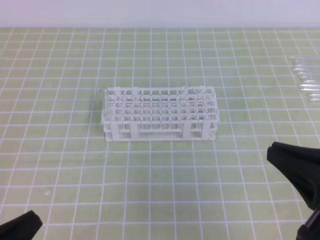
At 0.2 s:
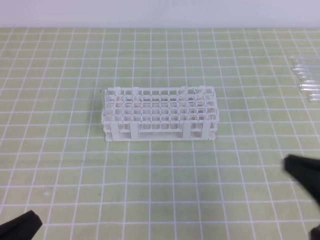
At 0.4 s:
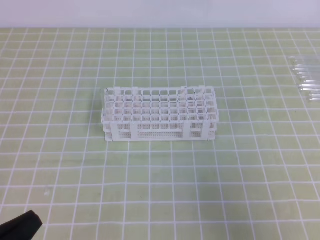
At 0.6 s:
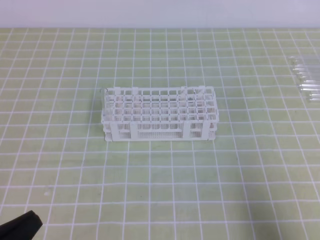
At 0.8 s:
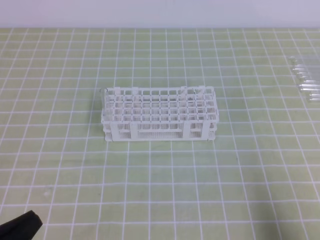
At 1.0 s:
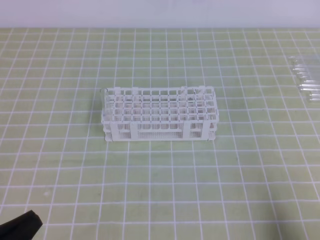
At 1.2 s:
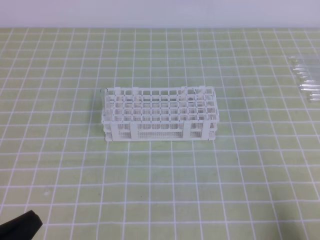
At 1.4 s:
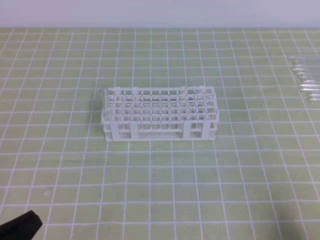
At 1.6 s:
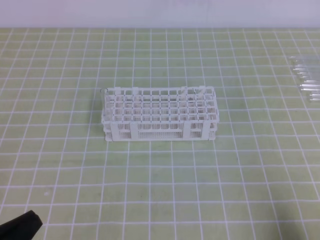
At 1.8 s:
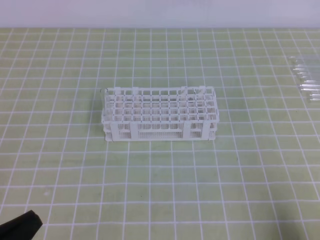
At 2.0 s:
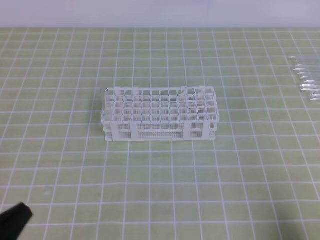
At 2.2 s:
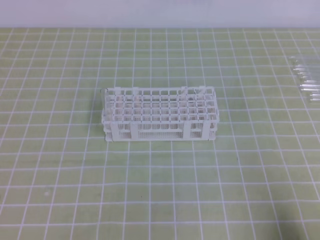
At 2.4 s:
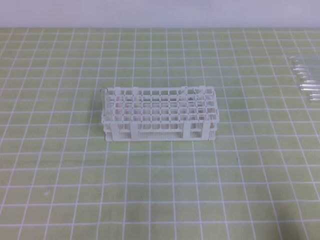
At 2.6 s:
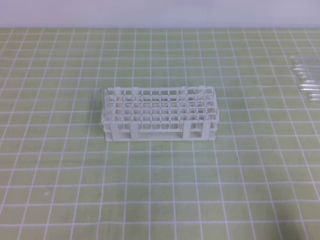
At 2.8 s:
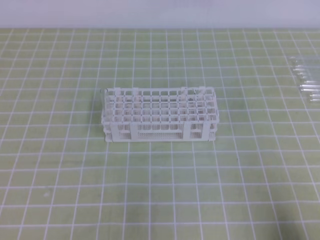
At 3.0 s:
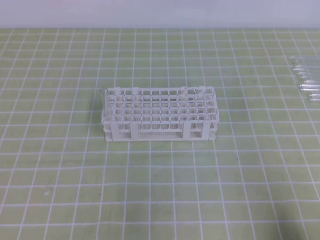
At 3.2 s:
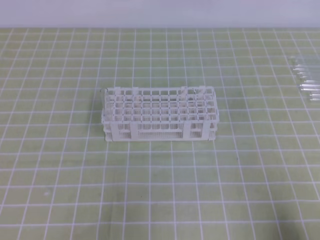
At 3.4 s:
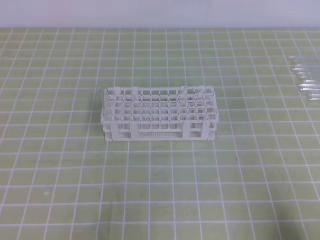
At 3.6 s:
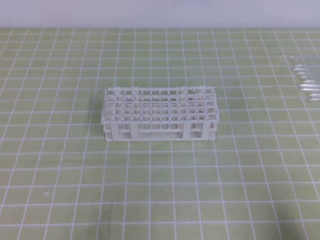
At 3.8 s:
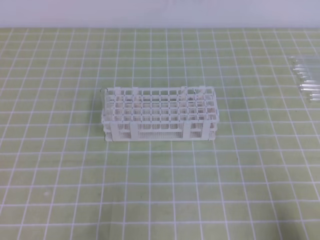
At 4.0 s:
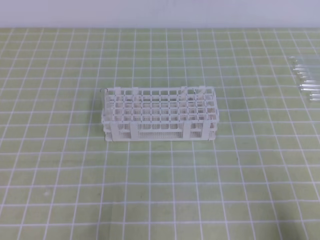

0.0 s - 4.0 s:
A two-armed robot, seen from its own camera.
0.0 s - 1.4 s: The right gripper goes about 15 cm downward and to the right.

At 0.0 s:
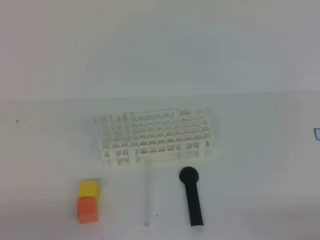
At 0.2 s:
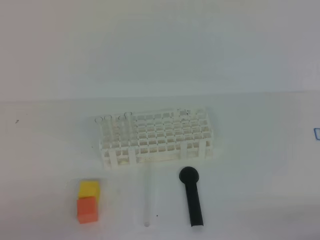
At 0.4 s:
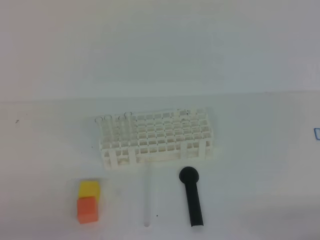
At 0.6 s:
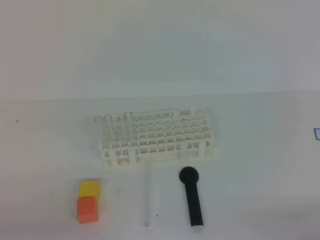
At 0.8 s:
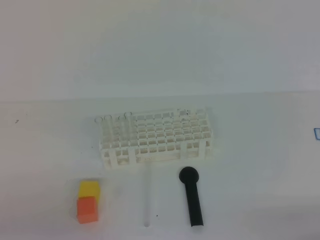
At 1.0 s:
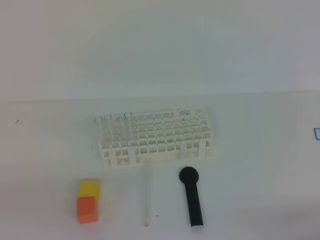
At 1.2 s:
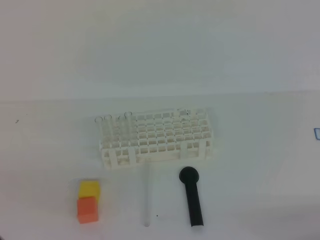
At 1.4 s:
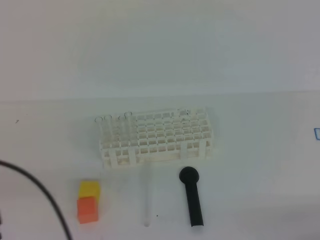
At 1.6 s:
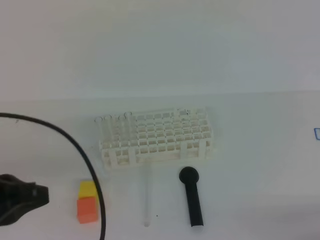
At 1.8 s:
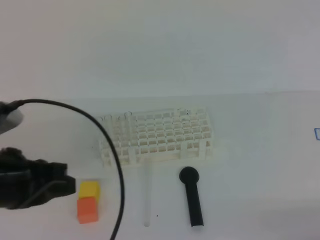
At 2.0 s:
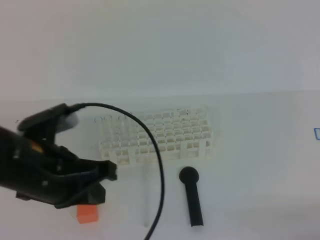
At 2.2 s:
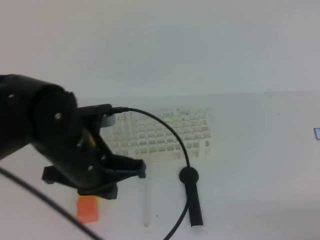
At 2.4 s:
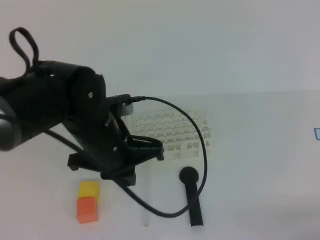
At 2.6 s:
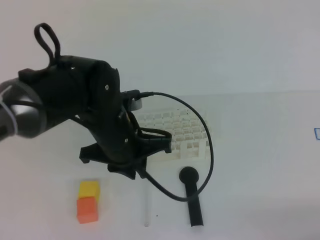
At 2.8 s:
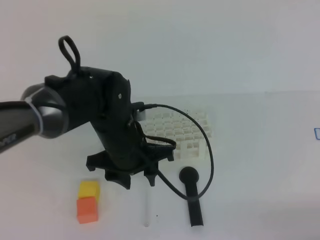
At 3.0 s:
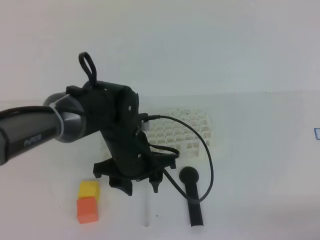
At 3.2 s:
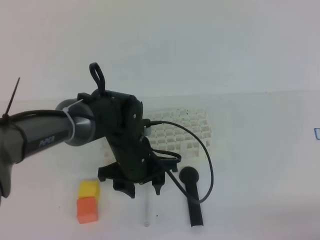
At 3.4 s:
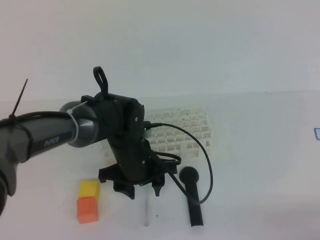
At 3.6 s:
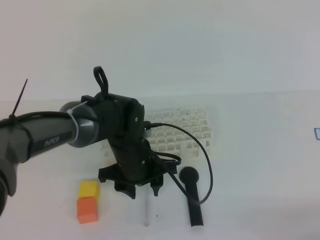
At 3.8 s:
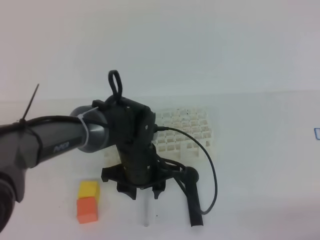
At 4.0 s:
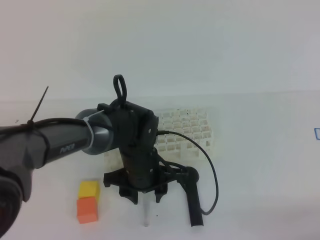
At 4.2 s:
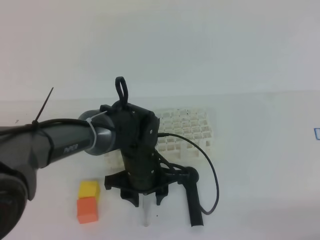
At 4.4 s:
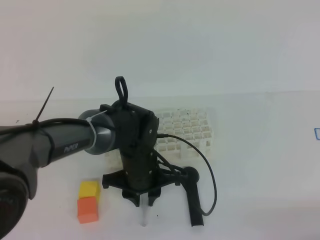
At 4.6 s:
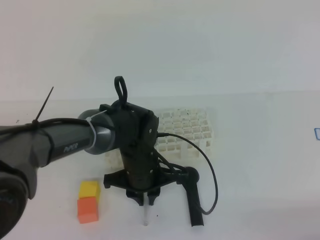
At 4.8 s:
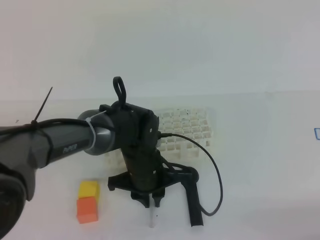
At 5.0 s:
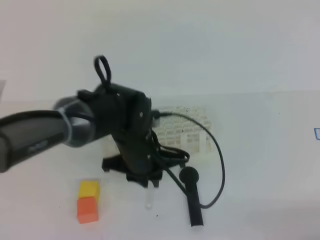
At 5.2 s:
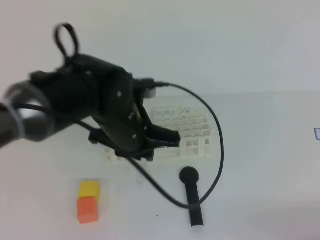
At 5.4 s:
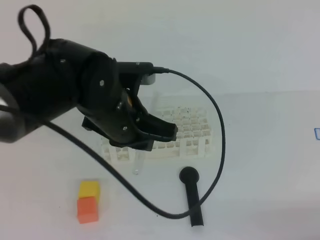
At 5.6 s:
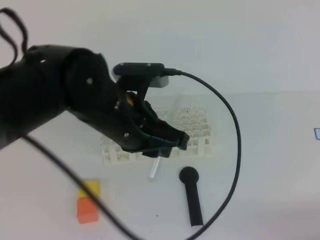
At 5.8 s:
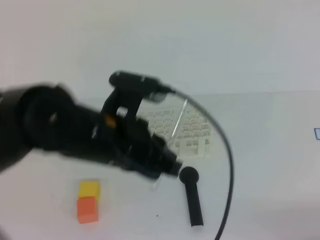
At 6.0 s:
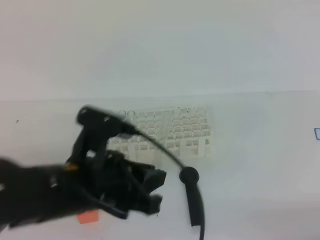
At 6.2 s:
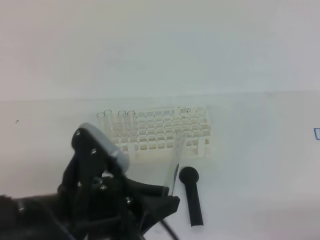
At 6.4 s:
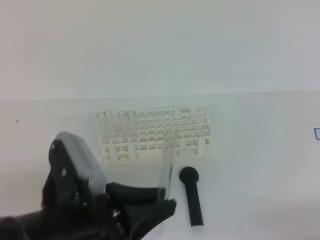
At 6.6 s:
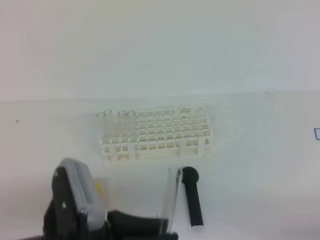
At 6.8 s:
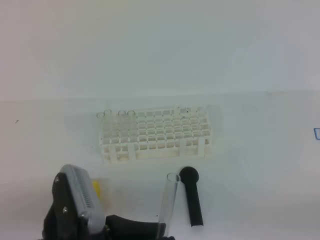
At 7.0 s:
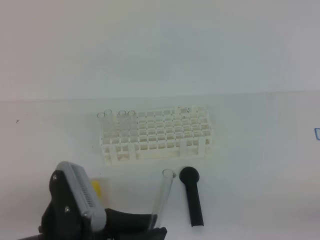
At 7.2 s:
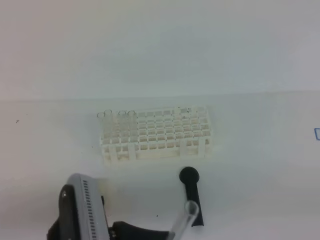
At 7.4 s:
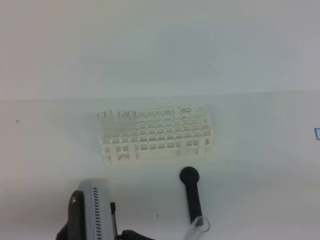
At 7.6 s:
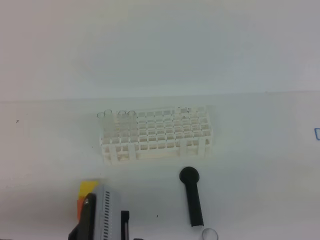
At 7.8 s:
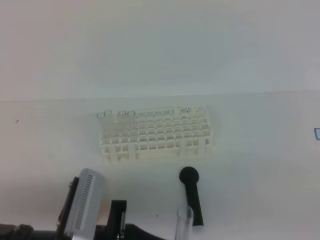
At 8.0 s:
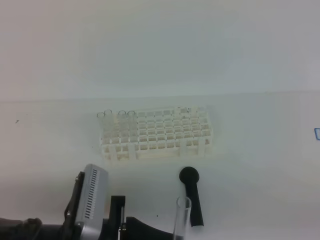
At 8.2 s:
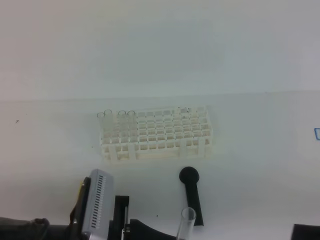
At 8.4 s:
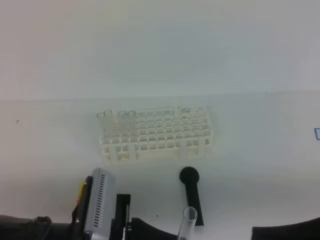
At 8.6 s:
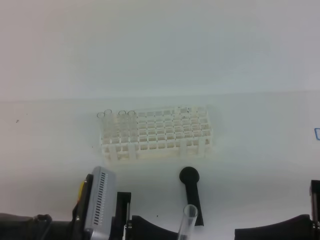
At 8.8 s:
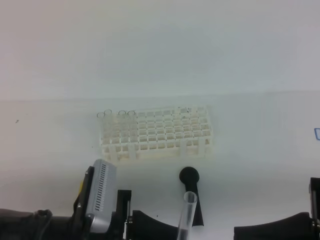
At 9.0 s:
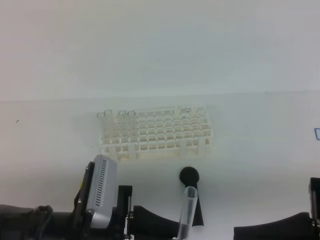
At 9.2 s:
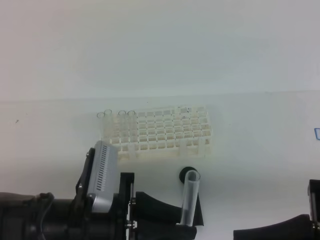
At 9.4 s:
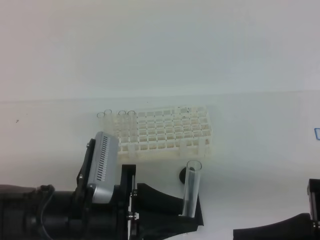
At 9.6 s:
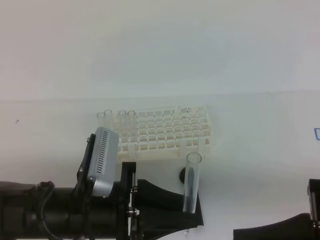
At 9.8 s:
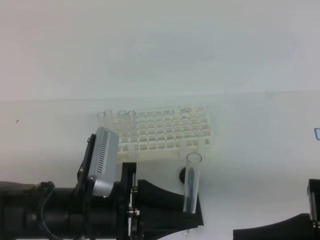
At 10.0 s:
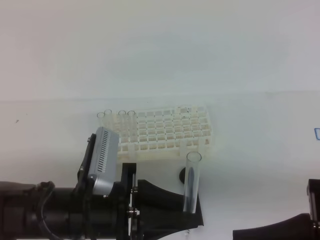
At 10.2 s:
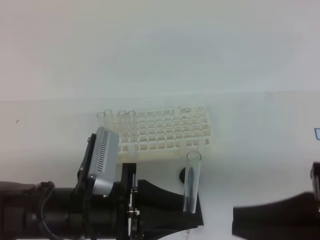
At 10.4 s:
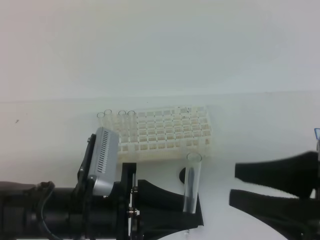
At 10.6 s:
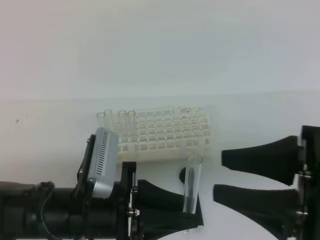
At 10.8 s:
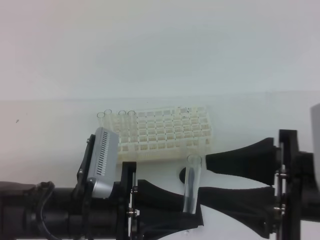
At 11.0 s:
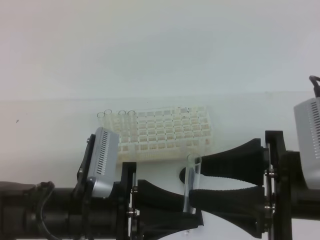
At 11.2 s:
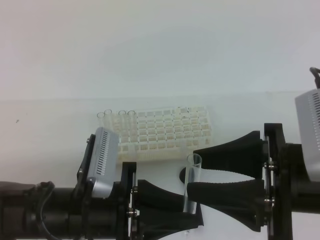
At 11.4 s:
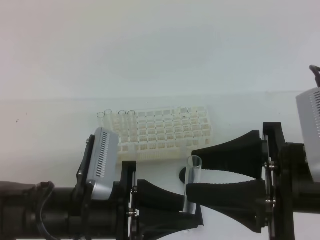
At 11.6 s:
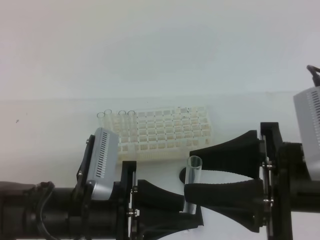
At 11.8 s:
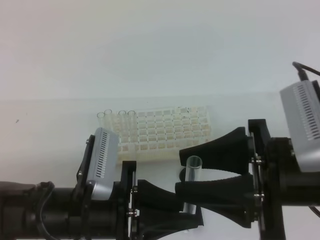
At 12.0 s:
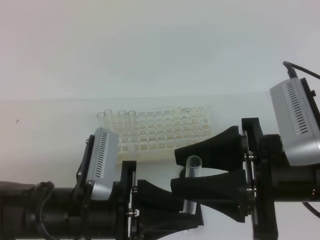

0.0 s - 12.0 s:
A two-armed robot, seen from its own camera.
Step, 0.0 s - 3.8 s: Grab the test tube with the left hand.
Step, 4.0 s - 10.4 s: Receive the test tube with the right hand.
0.0 s - 1.6 s: The left gripper is displaced upward and forward by approximately 15 cm.
1.6 s - 3.0 s: The left gripper travels to the right, forward and downward by approximately 25 cm, and opens its fingers.
3.0 s - 4.4 s: The left gripper goes roughly 5 cm downward, and closes up.
4.4 s - 6.0 s: The left gripper is displaced upward, backward and to the left by some 20 cm, and closes its fingers.
6.0 s - 7.6 s: The right gripper shifts about 15 cm upward, while the left gripper shifts about 10 cm backward.
7.6 s - 9.0 s: The right gripper heads to the left and forward, covering roughly 10 cm.
9.0 s - 10.4 s: The right gripper opens its fingers.
10.4 s - 12.0 s: The right gripper travels forward by some 5 cm.

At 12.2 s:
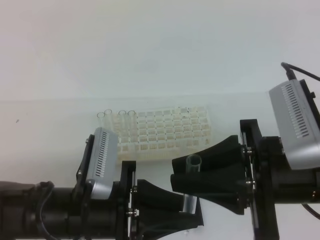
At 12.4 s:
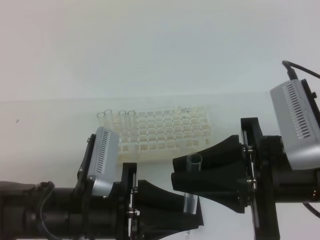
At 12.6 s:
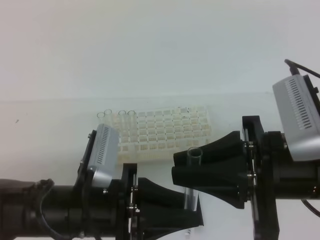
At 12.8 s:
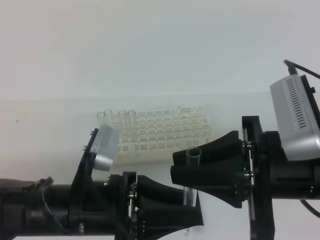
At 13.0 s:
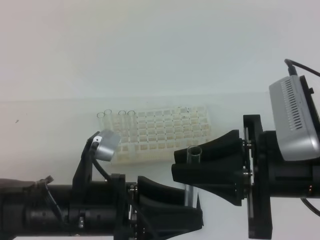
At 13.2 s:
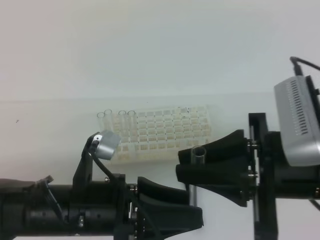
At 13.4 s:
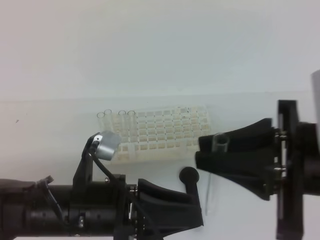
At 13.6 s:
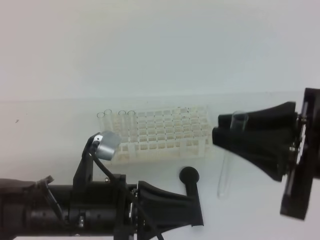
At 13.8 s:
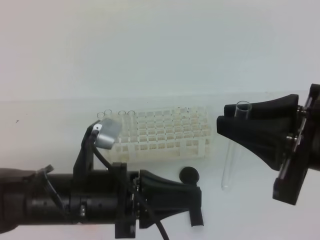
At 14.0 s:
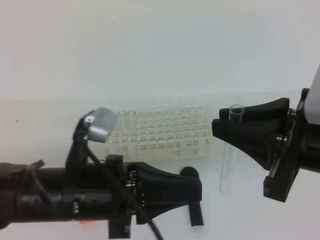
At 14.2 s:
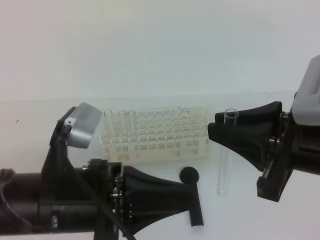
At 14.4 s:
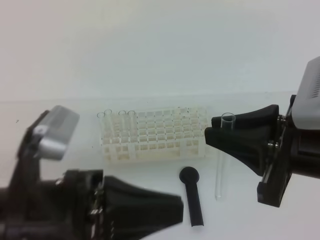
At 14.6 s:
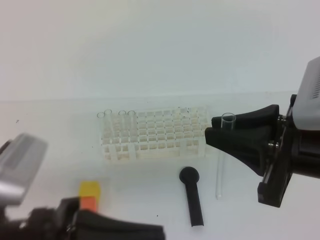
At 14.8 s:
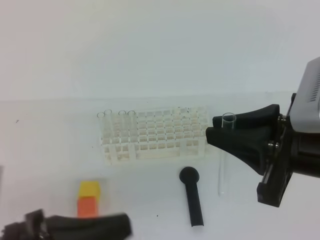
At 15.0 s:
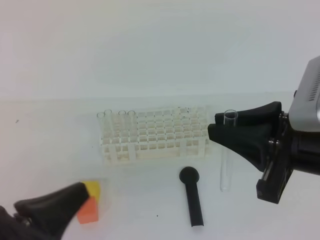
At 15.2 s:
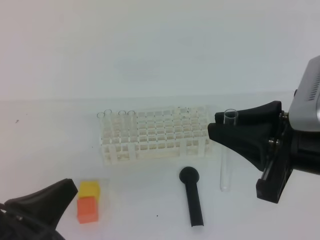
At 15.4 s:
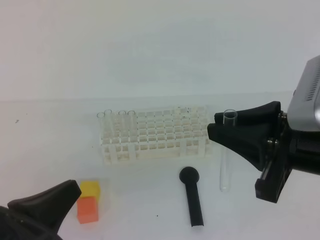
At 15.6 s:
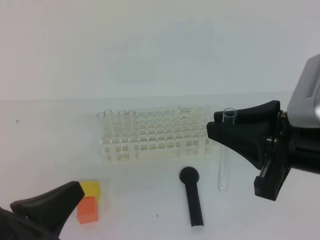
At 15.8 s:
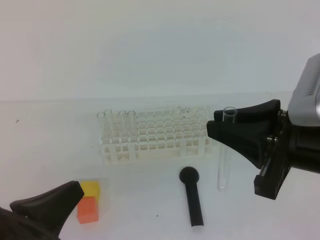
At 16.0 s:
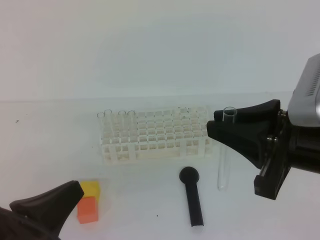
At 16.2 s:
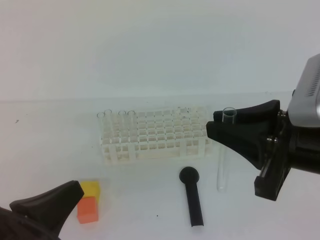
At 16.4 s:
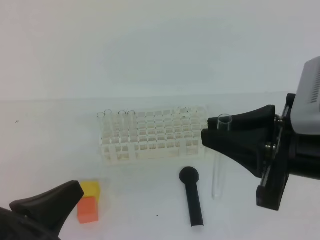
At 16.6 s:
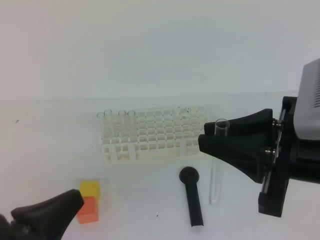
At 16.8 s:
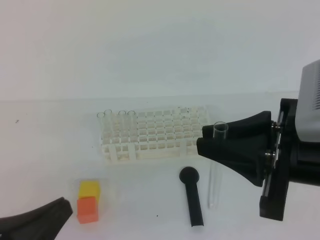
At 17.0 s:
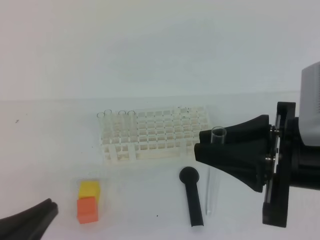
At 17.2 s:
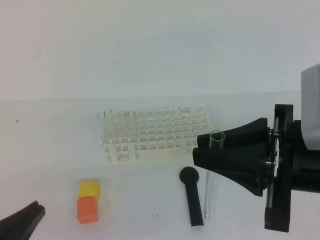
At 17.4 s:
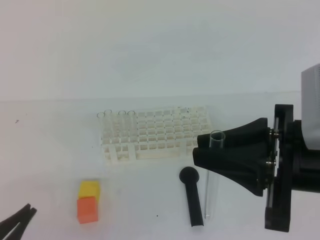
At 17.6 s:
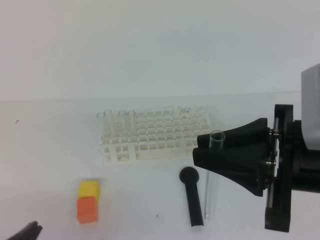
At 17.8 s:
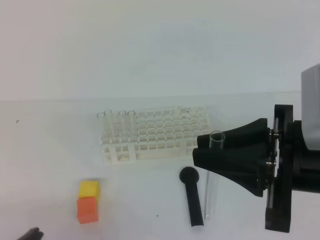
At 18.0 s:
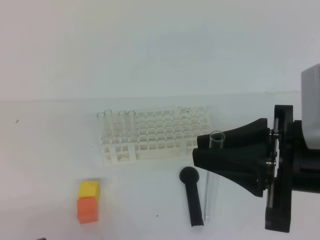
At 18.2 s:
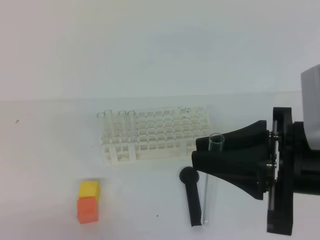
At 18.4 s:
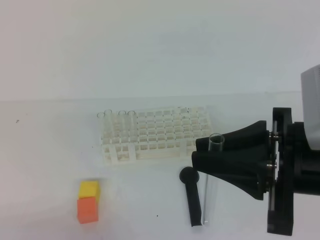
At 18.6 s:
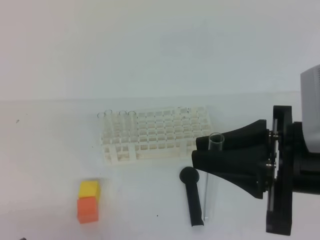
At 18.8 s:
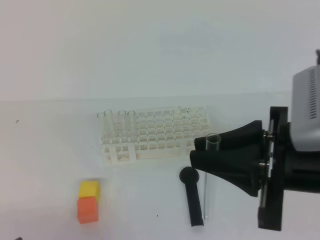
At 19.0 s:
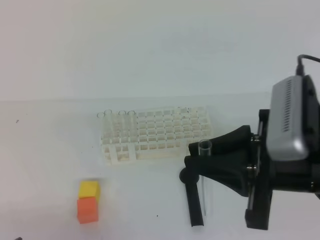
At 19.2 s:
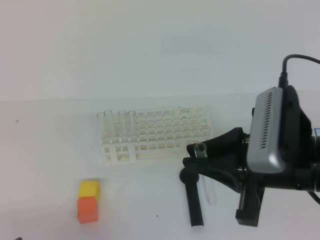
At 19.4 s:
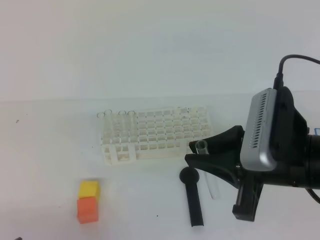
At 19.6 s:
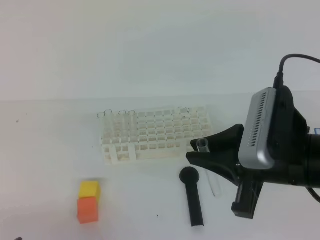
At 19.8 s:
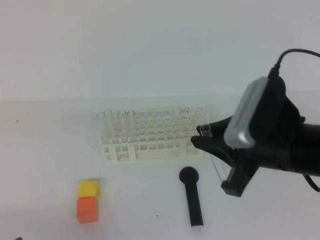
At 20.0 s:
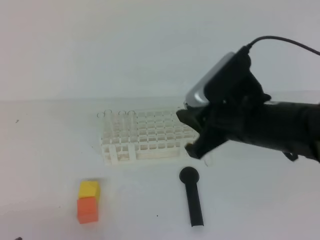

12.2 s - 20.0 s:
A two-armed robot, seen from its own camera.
Step, 12.2 s - 18.8 s: Insert it into the hole at the intersection of the 5th row from the top and the 5th column from the left with the right hand.
12.2 s - 13.8 s: The left gripper opens, then closes once more.
13.8 s - 15.4 s: The left gripper moves to the left and backward, some 10 cm.
16.8 s - 18.4 s: The left gripper moves downward, about 10 cm.
18.4 s - 20.0 s: The right gripper goes approximately 10 cm forward and downward.
